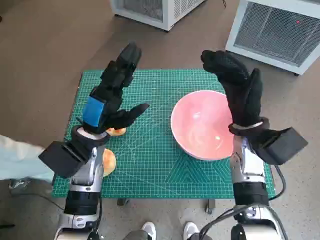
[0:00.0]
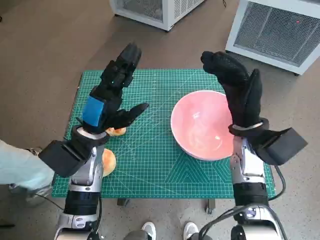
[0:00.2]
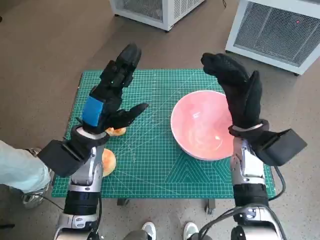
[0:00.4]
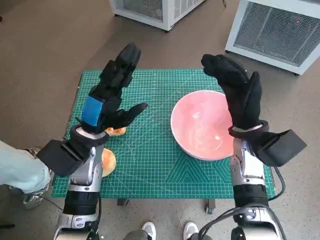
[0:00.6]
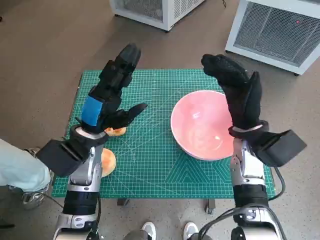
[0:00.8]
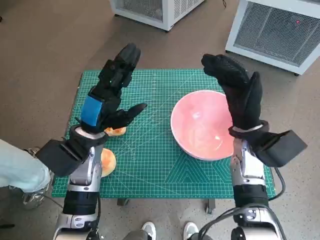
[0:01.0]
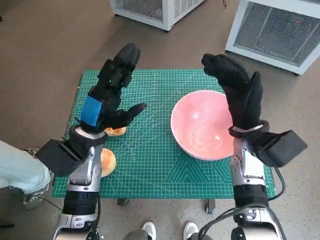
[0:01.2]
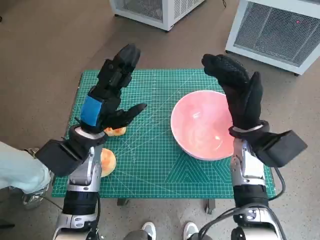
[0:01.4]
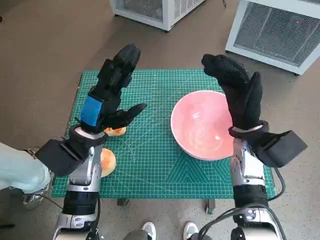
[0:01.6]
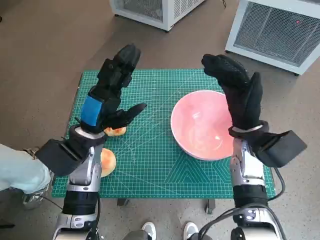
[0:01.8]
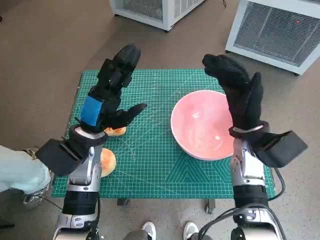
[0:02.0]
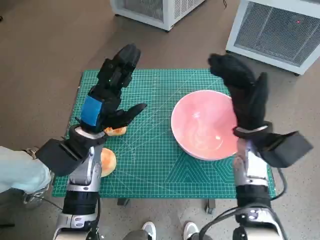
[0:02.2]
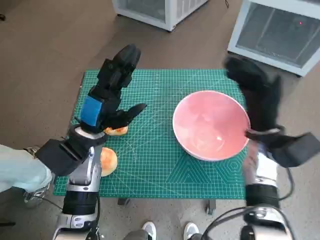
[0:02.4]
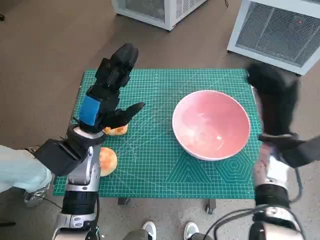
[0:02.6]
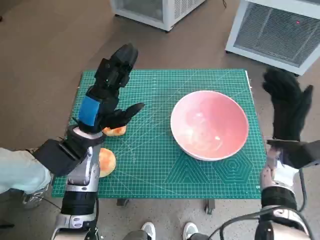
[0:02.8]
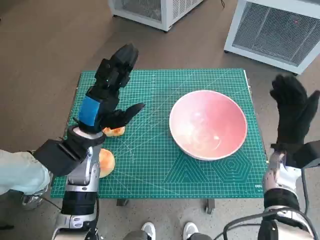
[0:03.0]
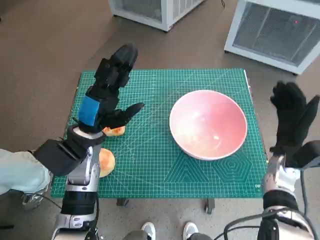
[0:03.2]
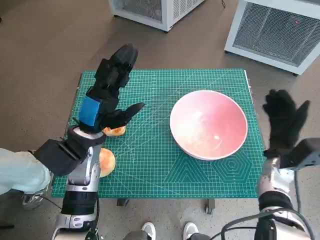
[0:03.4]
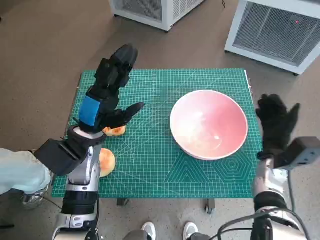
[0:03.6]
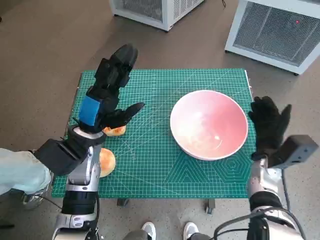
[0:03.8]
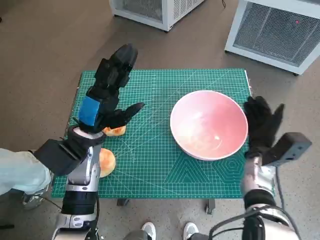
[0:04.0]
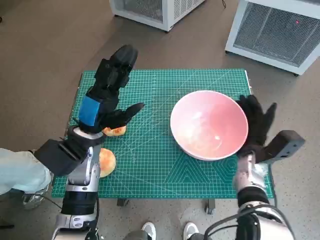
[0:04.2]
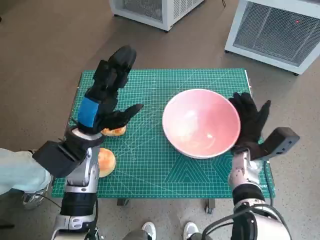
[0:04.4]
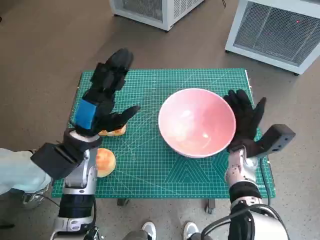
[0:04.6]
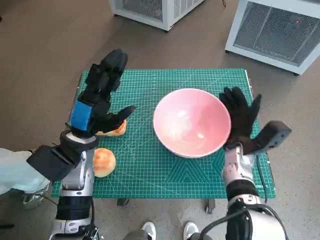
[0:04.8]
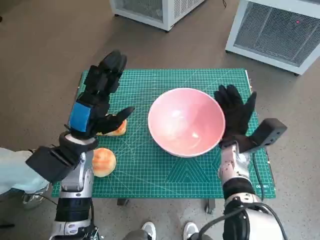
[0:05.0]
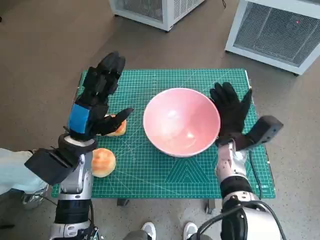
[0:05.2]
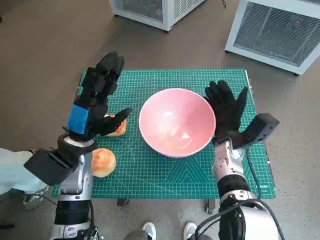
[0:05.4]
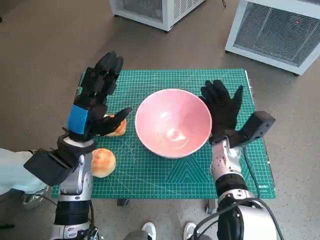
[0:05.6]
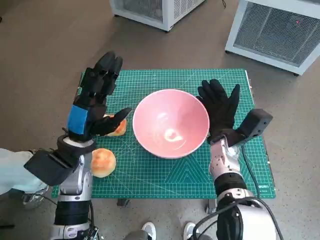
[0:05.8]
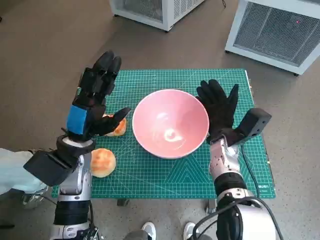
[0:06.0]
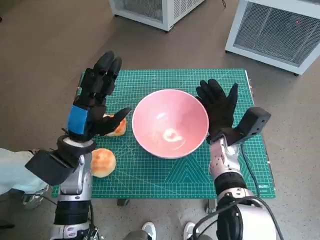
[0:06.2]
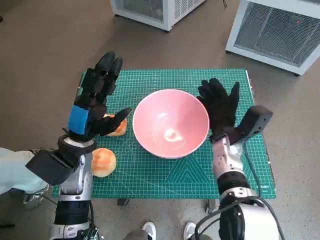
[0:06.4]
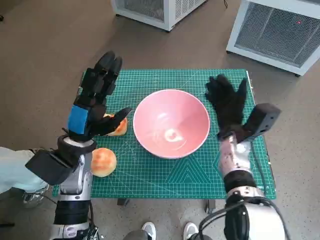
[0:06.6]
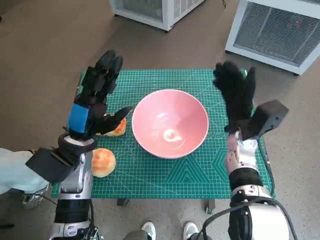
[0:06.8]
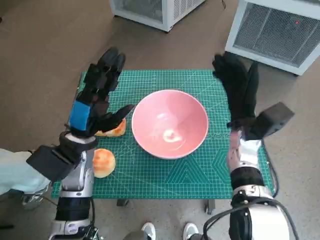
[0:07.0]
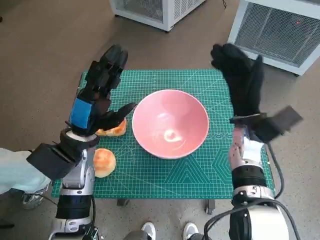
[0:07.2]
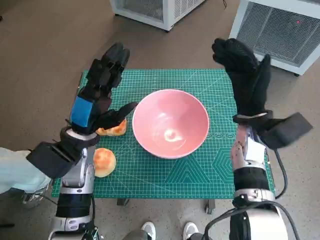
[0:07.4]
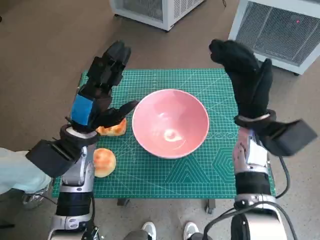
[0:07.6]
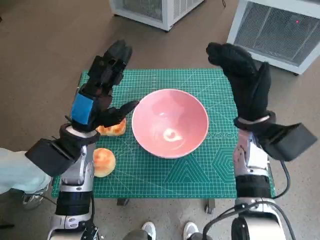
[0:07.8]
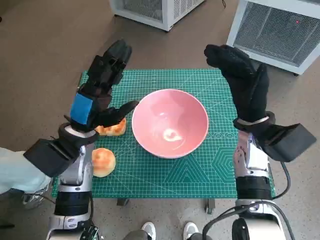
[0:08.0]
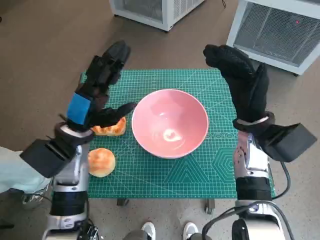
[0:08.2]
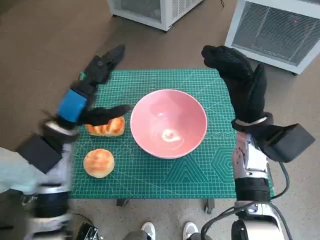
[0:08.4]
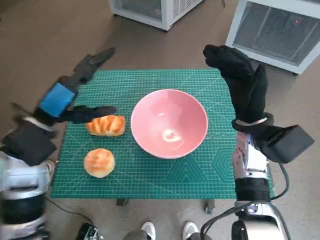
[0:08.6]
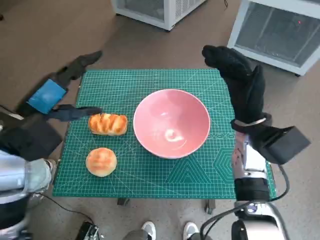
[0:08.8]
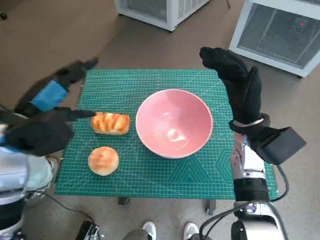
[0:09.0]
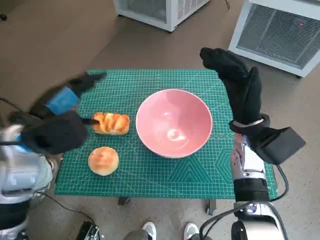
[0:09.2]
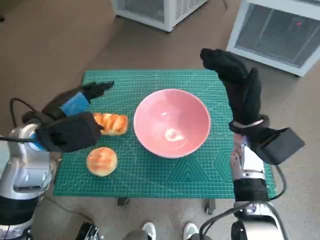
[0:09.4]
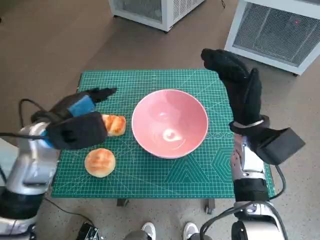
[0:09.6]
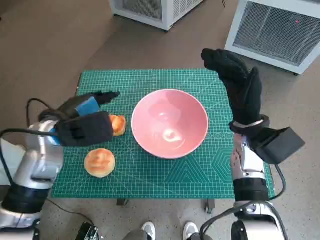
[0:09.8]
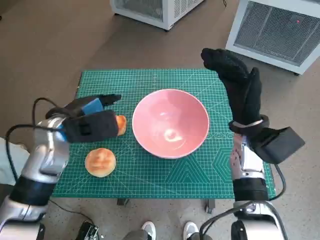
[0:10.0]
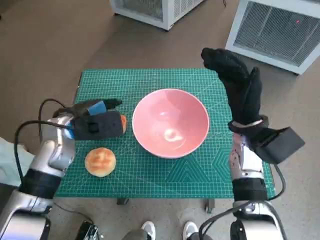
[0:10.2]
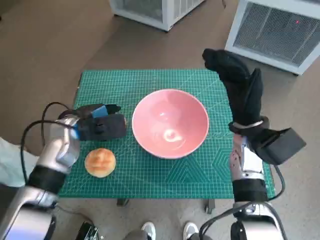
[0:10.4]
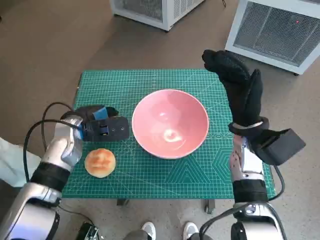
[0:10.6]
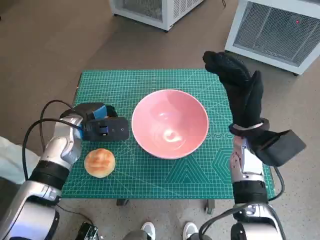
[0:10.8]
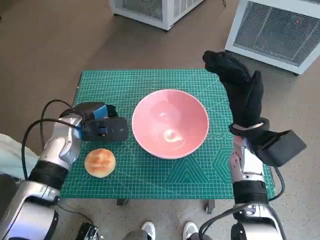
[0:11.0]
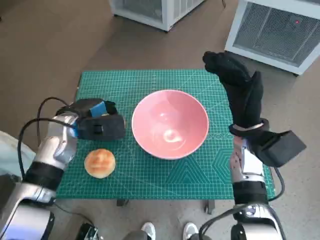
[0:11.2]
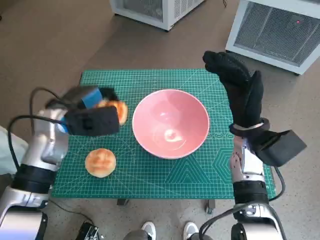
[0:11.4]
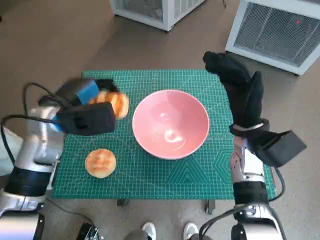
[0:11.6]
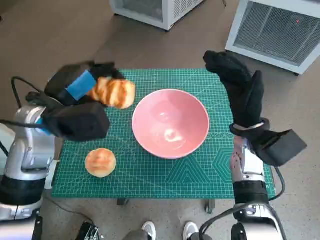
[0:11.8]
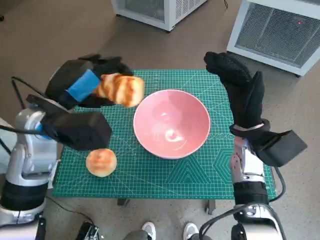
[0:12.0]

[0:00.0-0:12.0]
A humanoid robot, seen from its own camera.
Task of the whole recording: Push the bowl into the center of the table and put the bread into the bowl.
Step, 0:00.0 to 0:06.4: Move the pink bowl to the center of table with right hand.
Step, 0:06.6 to 0:10.6: Grasp the long bread with left hand.
0:01.6 to 0:03.0: The right hand shifts approximately 10 cm to the right and downward.
0:03.0 to 0:04.4: The right hand shifts roughly 5 cm to the left.
0:04.4 to 0:06.0: The right hand travels to the left by roughly 5 cm.
0:06.0 to 0:07.6: The right hand goes approximately 10 cm upward.
0:07.6 to 0:09.0: The left hand is displaced upward and to the left by some 10 cm.
0:09.0 to 0:10.4: The left hand shifts approximately 10 cm downward and forward.
0:10.4 to 0:12.0: The left hand goes some 10 cm upward.

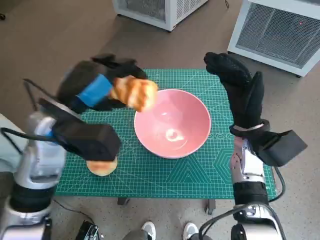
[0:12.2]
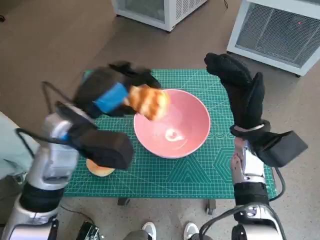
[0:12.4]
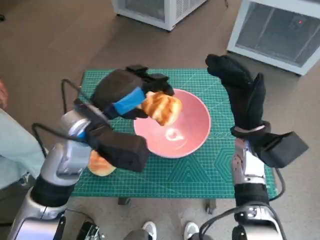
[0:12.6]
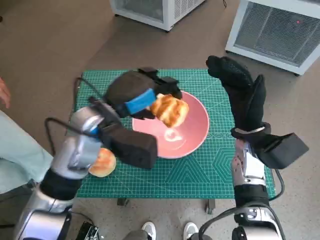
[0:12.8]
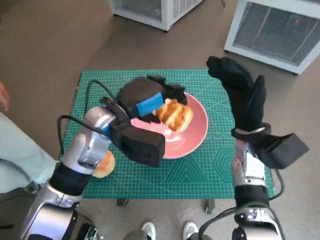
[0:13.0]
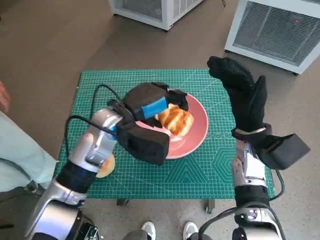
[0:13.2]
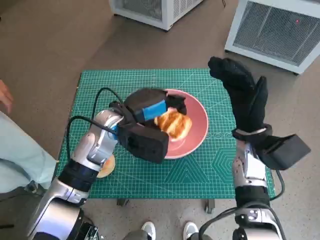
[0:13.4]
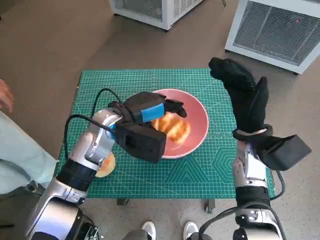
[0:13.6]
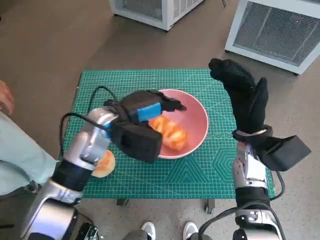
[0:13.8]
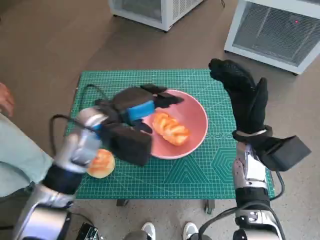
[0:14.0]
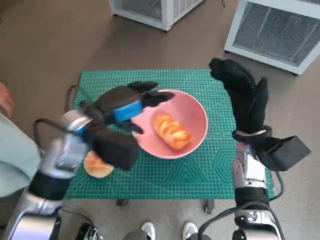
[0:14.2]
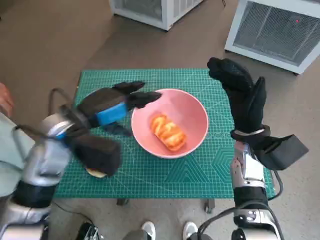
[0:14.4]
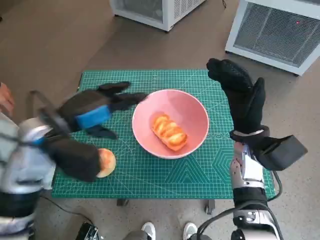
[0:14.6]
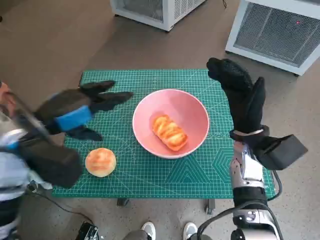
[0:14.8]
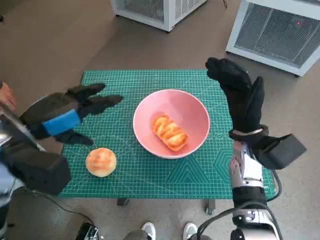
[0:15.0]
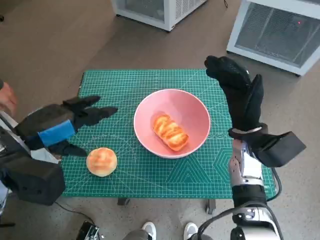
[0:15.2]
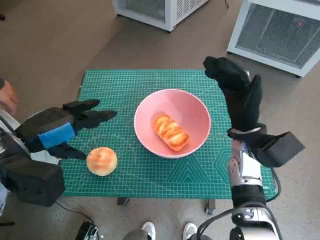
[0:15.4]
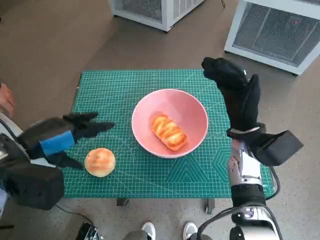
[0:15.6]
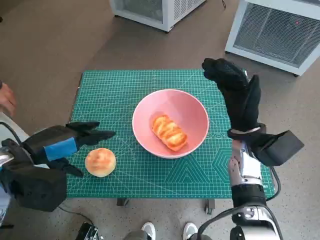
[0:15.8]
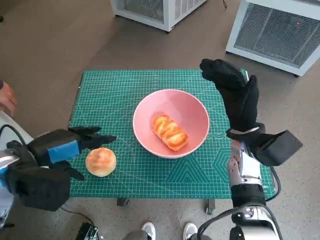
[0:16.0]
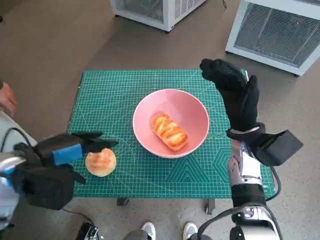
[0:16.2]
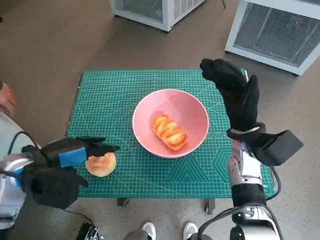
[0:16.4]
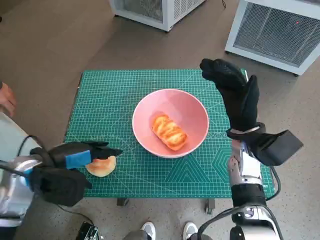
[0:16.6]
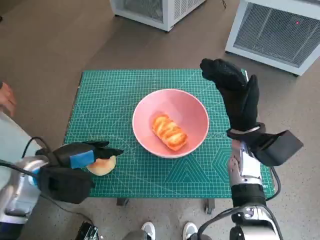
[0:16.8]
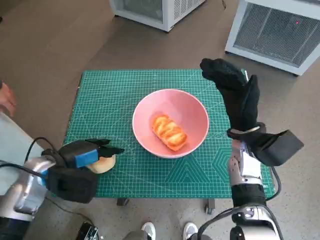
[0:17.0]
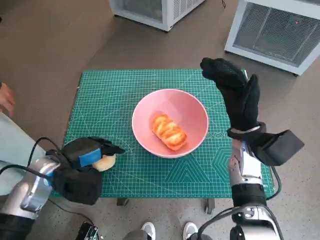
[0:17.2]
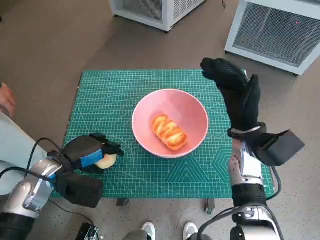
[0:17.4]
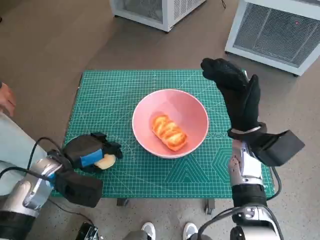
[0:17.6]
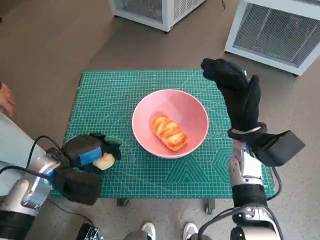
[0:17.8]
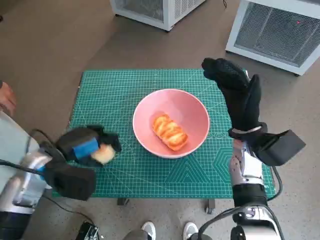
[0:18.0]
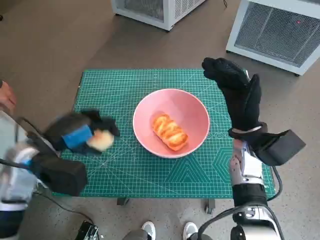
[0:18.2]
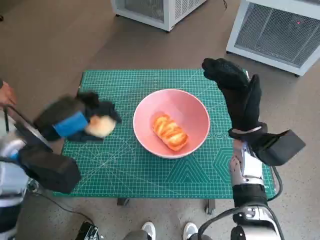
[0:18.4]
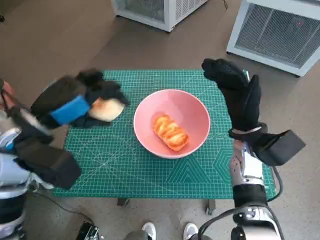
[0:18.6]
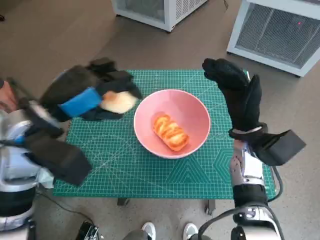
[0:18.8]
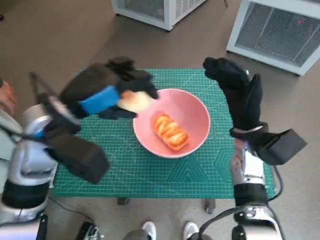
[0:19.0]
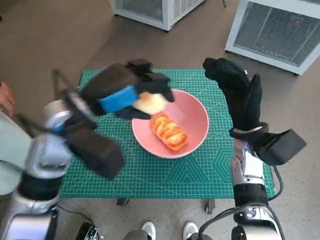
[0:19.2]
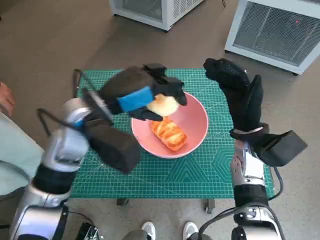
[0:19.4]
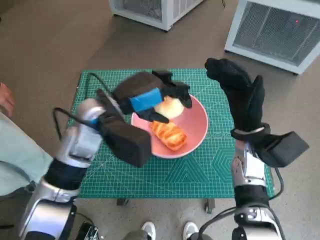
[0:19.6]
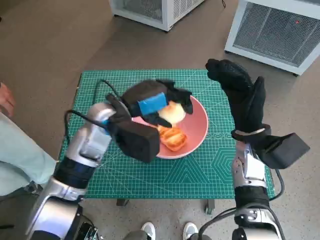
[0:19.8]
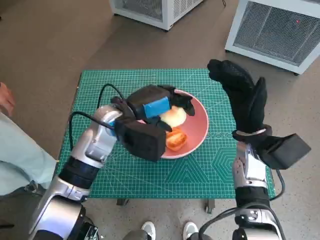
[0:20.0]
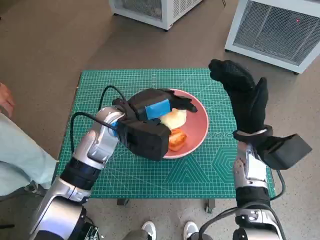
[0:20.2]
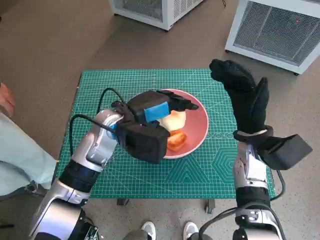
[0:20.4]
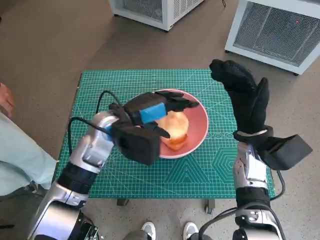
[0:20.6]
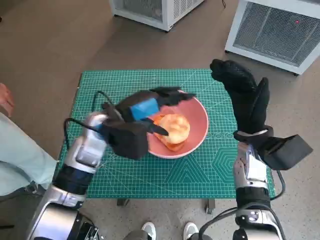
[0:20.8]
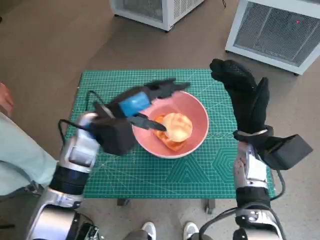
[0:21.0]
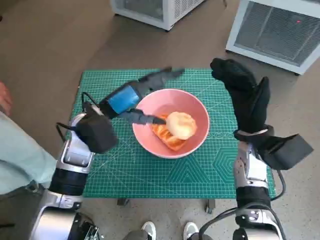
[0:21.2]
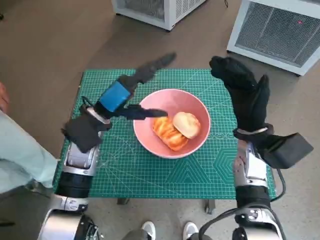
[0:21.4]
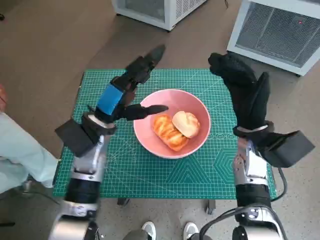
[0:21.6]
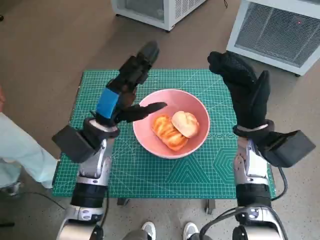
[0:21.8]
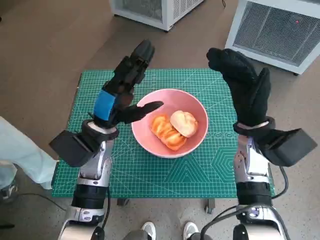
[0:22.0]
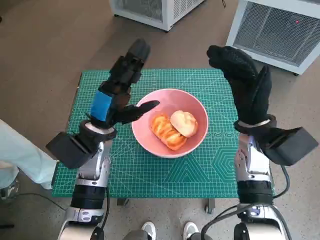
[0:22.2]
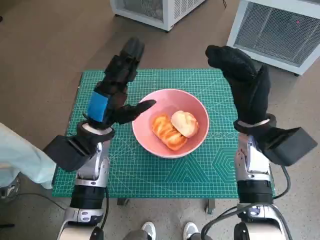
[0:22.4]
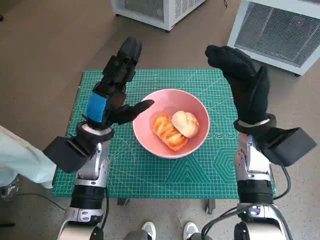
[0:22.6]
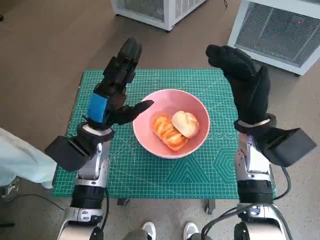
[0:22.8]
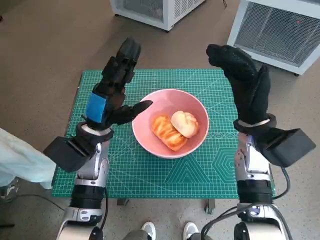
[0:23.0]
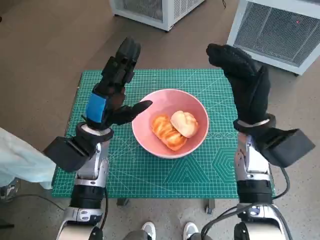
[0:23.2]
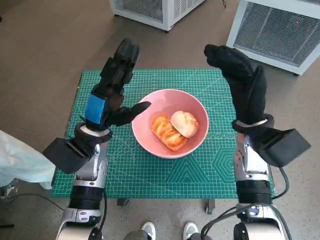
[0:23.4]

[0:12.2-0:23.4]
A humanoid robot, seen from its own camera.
Task of the whole recording: Push the bowl into the center of the table and put the bread into the bowl.
Step, 0:14.0 to 0:17.2: Grasp the round bread with left hand.
Step, 0:17.4 to 0:20.6: Place the round bread in pink bowl with left hand.
0:12.2 to 0:13.8: The left hand is displaced to the right and downward by approximately 10 cm.
0:13.8 to 0:15.4: The left hand shifts roughly 15 cm to the left, backward and upward.
0:15.4 to 0:17.0: The left hand shifts approximately 10 cm downward.
0:17.0 to 0:18.6: The left hand travels upward by about 10 cm.
0:18.6 to 0:20.2: The left hand travels to the right, forward and downward by about 15 cm.
0:20.2 to 0:21.8: The left hand changes place by about 5 cm.
0:21.8 to 0:23.4: The hands make only small movements.
